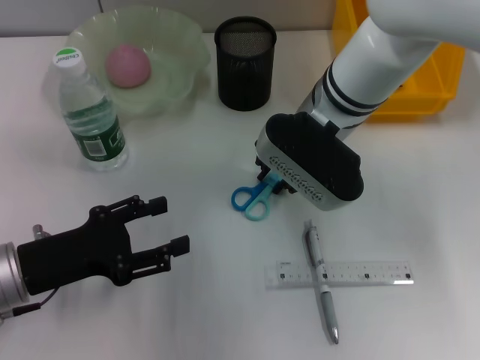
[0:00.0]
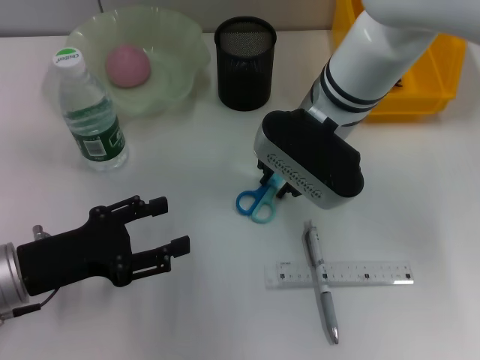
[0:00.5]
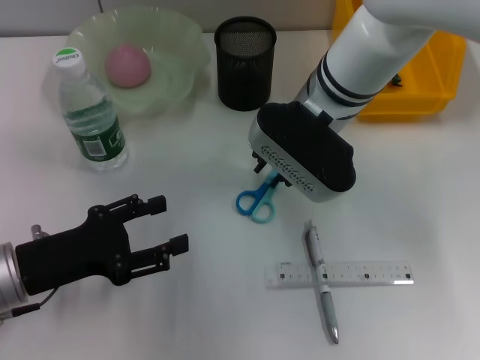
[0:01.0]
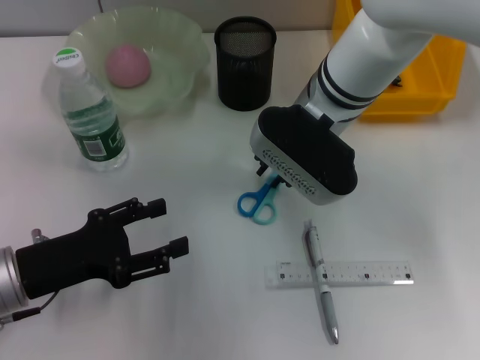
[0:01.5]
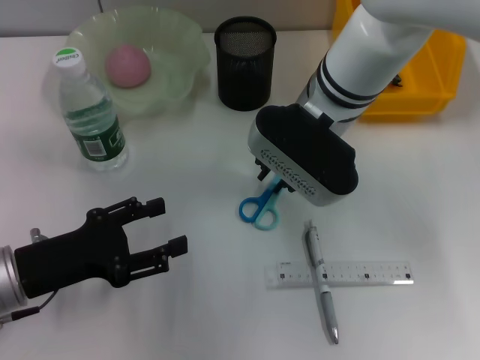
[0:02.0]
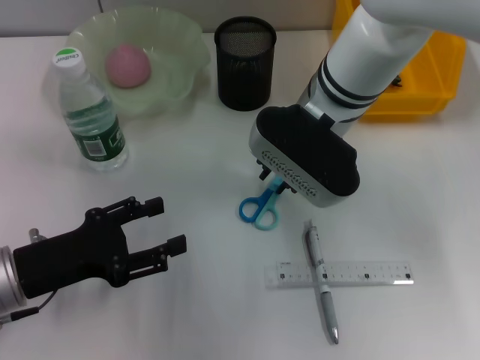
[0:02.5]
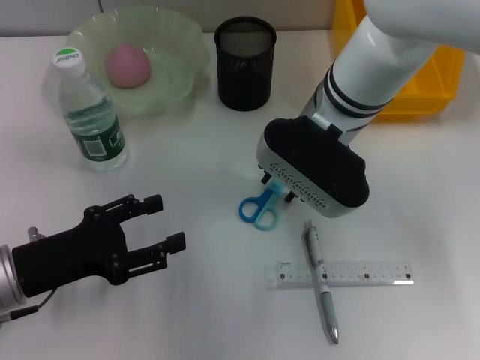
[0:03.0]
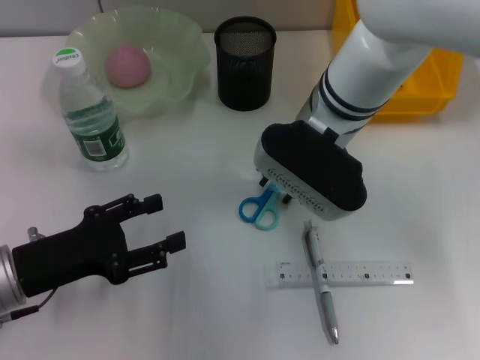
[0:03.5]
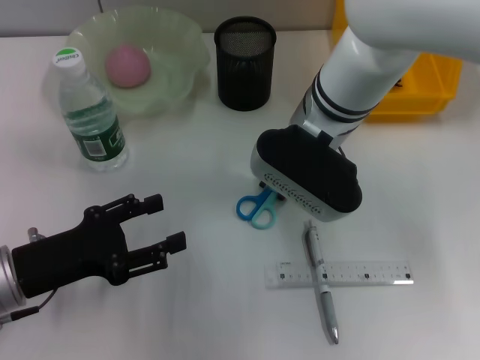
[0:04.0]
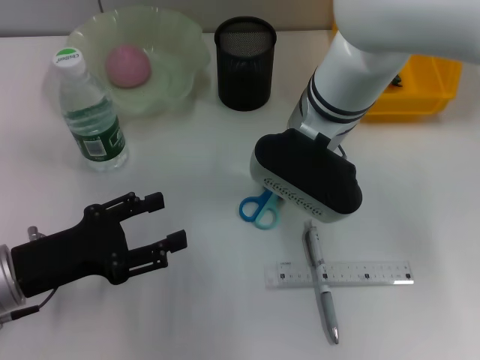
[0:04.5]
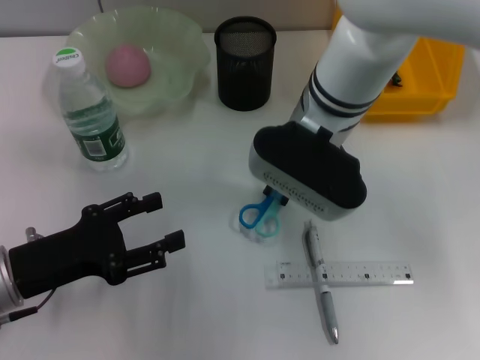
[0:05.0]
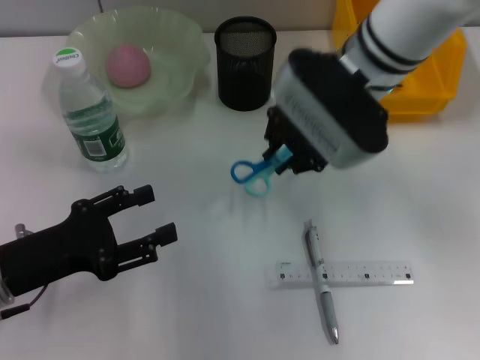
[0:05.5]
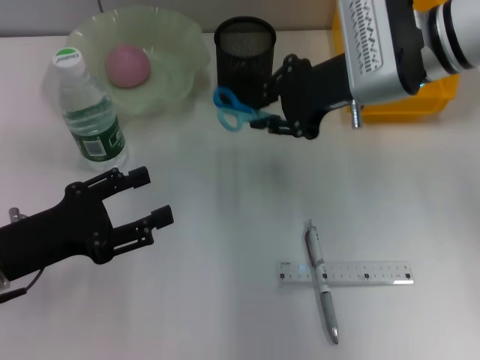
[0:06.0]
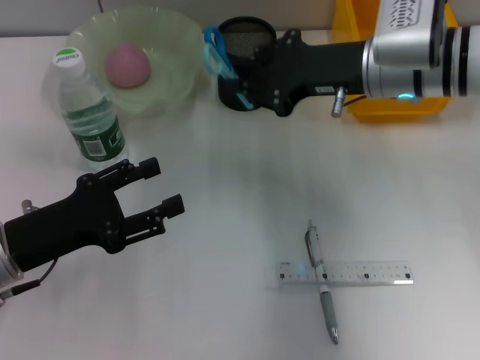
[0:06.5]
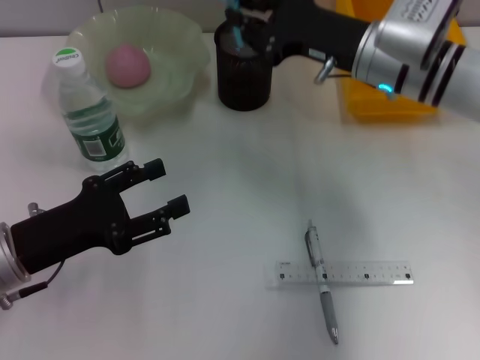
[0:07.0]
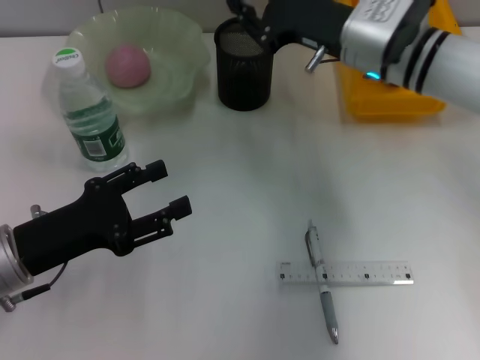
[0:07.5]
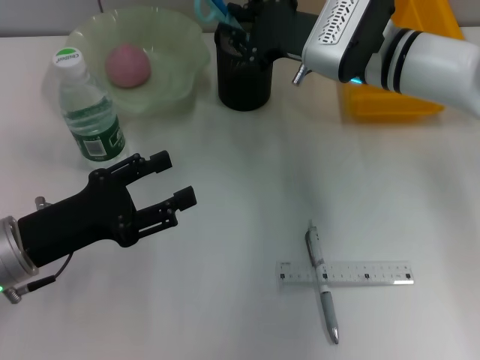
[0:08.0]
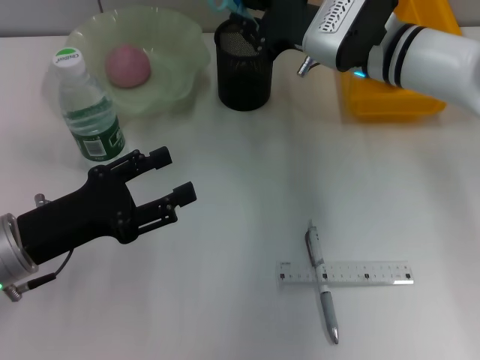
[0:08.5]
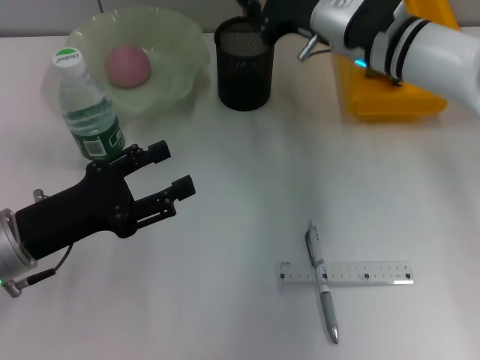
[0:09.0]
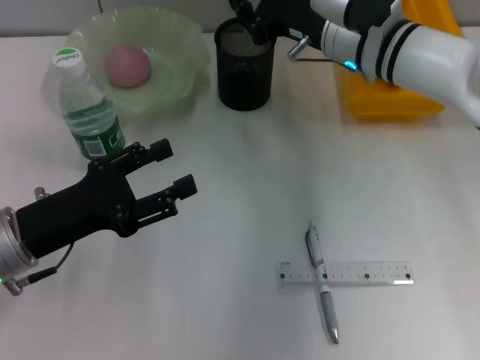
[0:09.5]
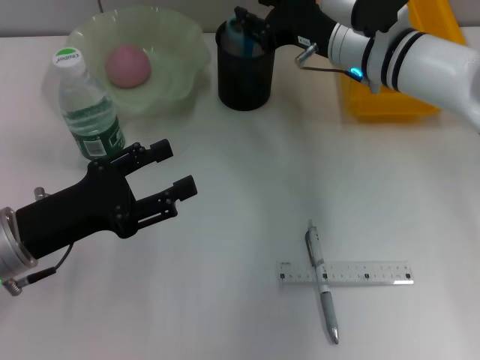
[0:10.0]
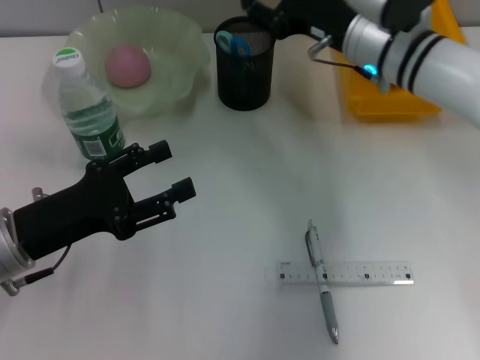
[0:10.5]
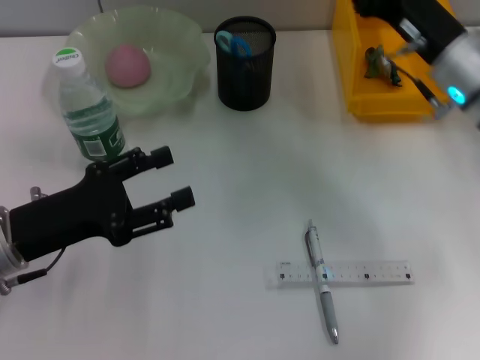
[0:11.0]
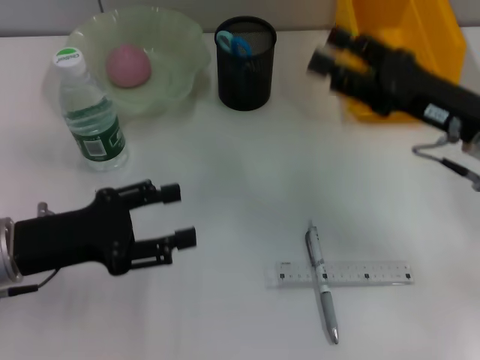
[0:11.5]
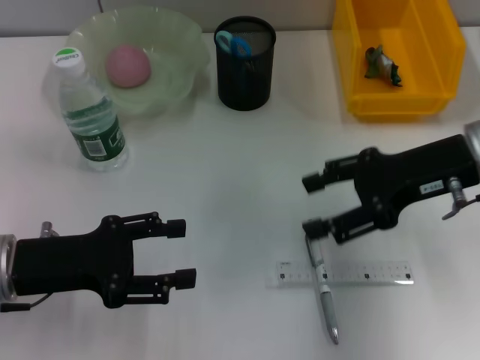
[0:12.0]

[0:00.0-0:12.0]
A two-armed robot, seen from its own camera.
Step, 0:00.0 to 0:04.5: Grab the blue utility knife with the right hand.
Step, 0:05.0 to 0:10.0: Place the blue utility knife into the pen holder with the right hand.
0:00.0 to 0:04.0: The grippers make only small movements.
0:04.0 to 0:06.0: The right gripper goes some 10 cm to the right.
0:06.0 to 0:08.0: The right gripper shifts by some 5 cm.
0:10.0 to 0:12.0: The right gripper travels backward and to the right by some 15 cm, and opens its fingers.

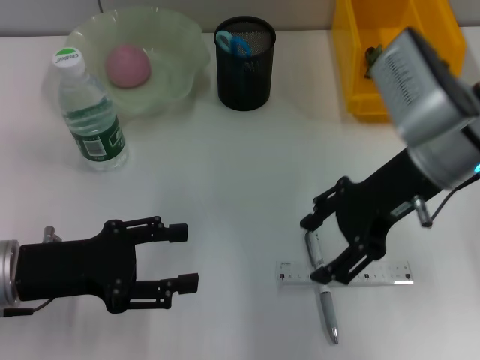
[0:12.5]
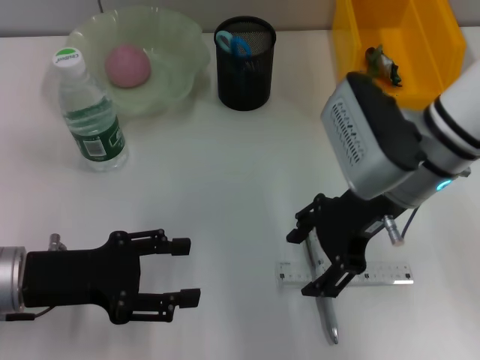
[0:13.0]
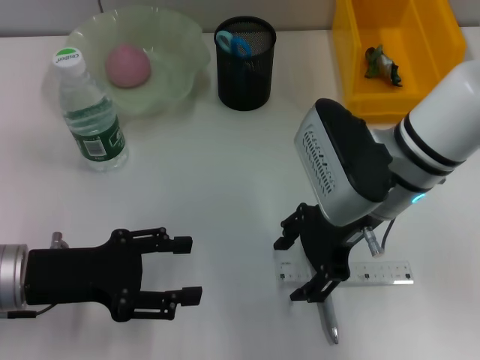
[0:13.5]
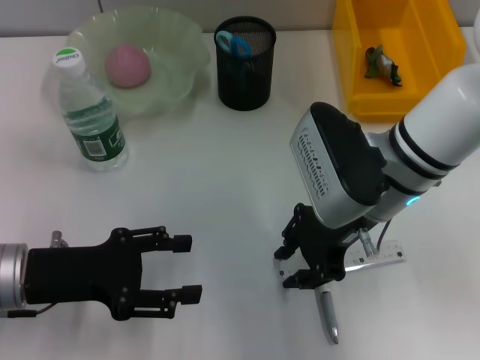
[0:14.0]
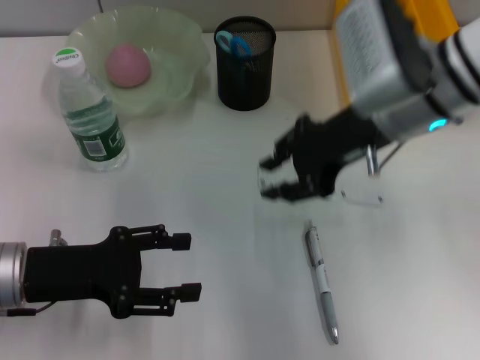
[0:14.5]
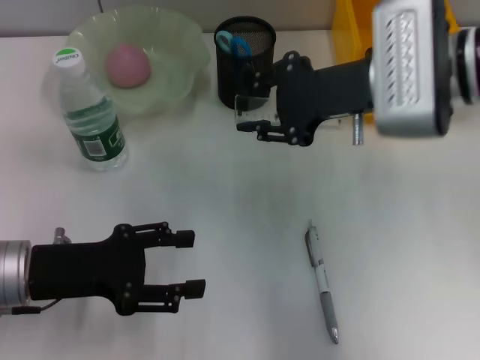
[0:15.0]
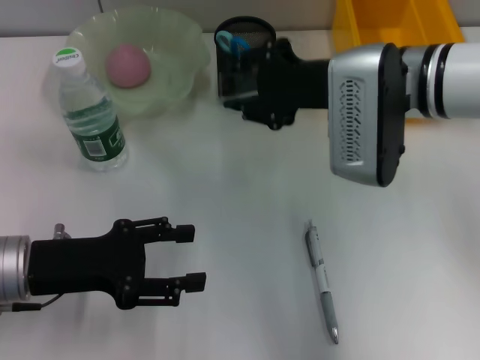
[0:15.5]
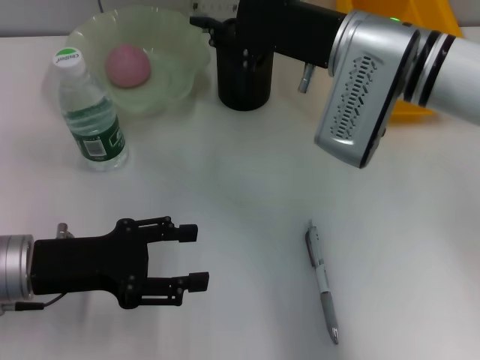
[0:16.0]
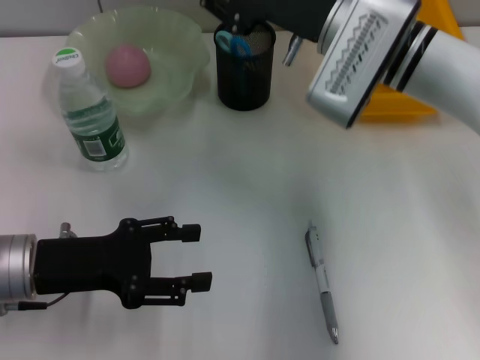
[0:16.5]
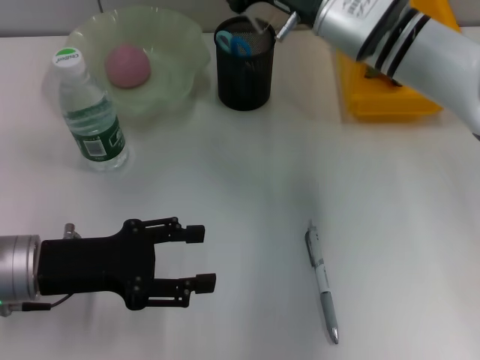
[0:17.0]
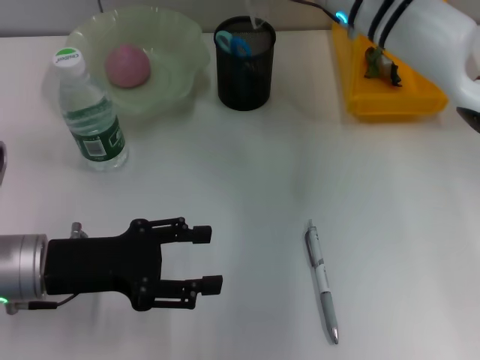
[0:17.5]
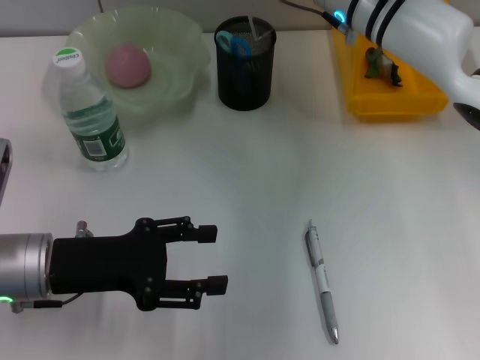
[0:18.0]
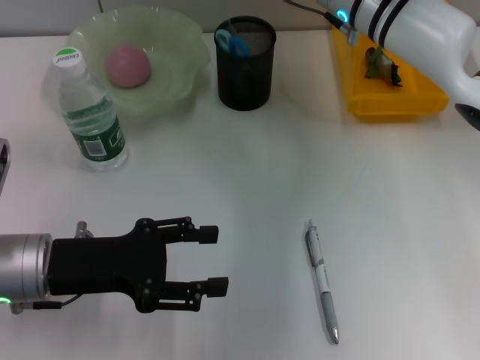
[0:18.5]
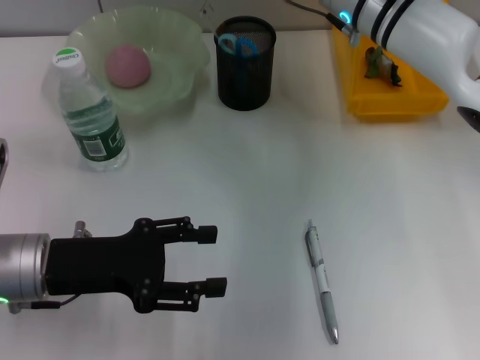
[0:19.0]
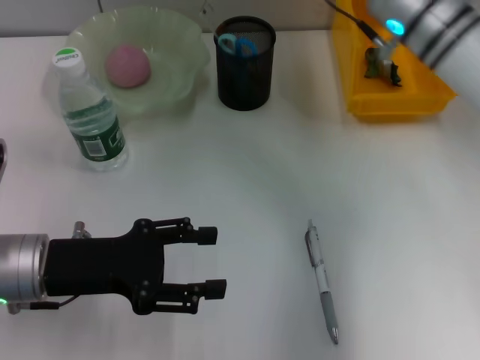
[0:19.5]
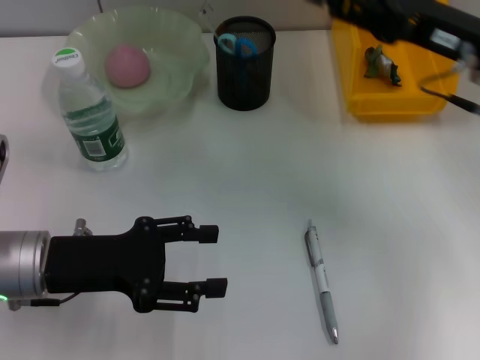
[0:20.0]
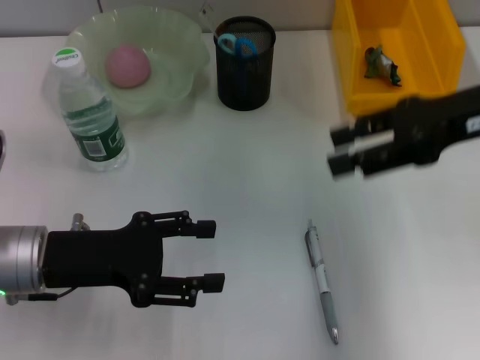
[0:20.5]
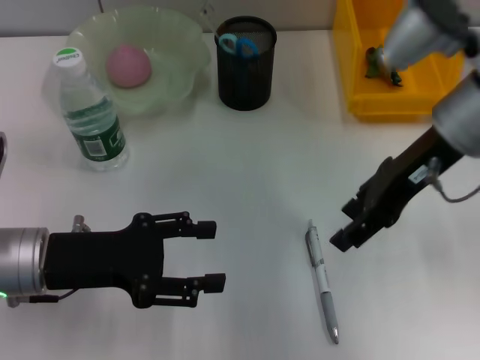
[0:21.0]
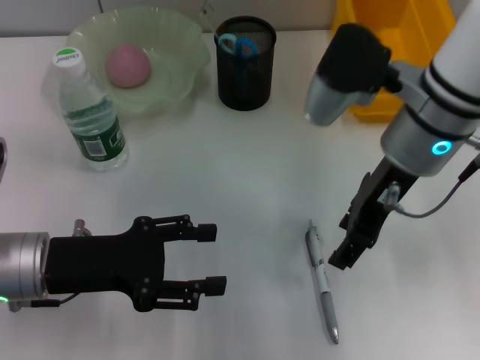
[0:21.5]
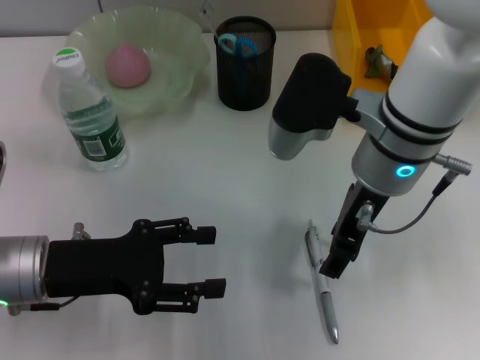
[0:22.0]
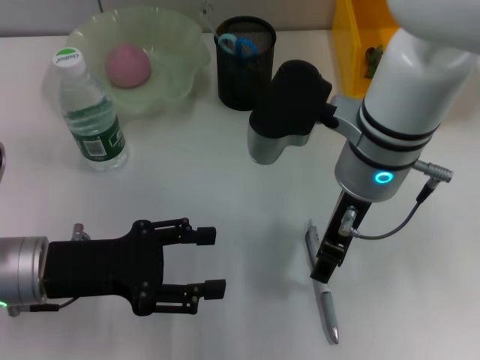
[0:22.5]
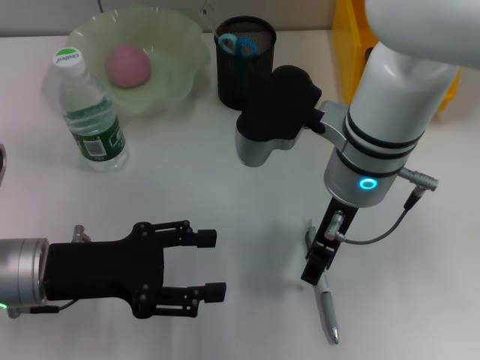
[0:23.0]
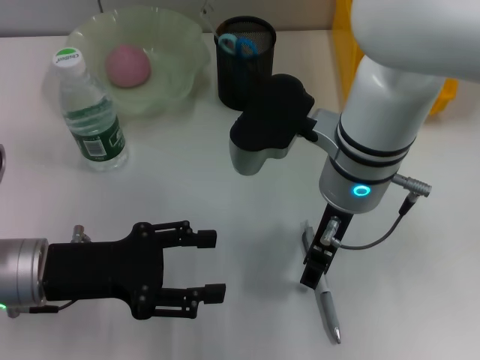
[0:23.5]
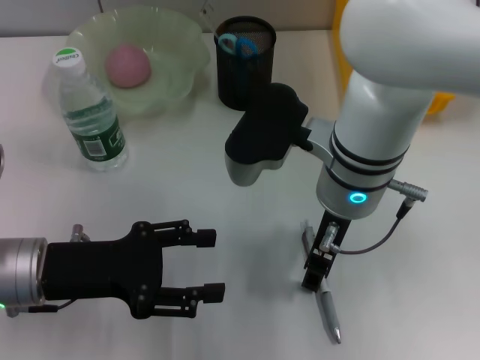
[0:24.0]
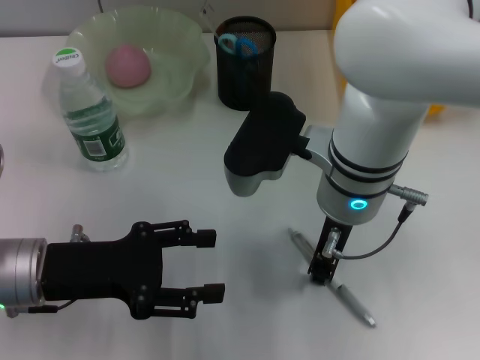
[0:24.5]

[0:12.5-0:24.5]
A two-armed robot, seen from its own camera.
Step, 0:14.0 to 0:18.5: Place the ruler into the pen holder with the right hand.
0:12.5 to 0:14.5: The right gripper closes.
0:14.5 to 0:16.5: The right gripper shifts by some 5 cm.
0:18.5 to 0:20.5: The right gripper is displaced to the right and backward by about 20 cm.
0:20.5 to 0:22.5: The right gripper is displaced to the left by approximately 15 cm.

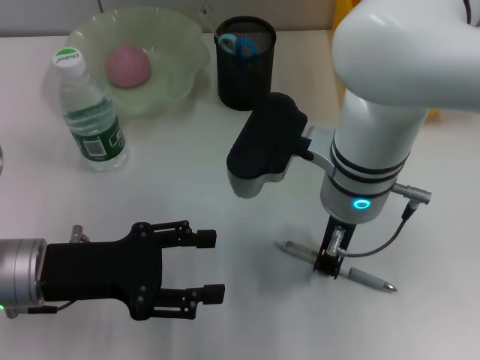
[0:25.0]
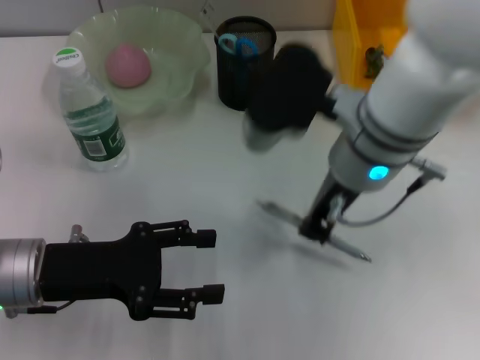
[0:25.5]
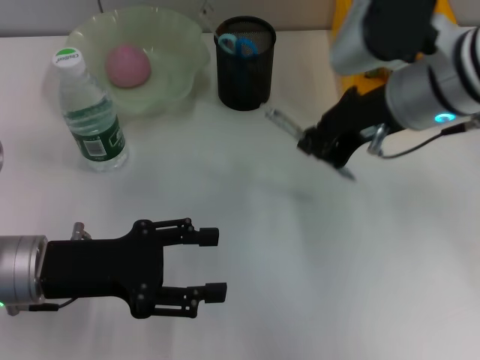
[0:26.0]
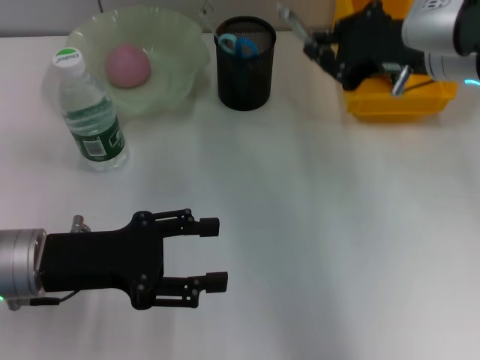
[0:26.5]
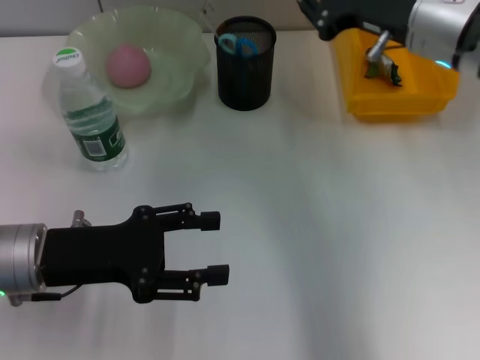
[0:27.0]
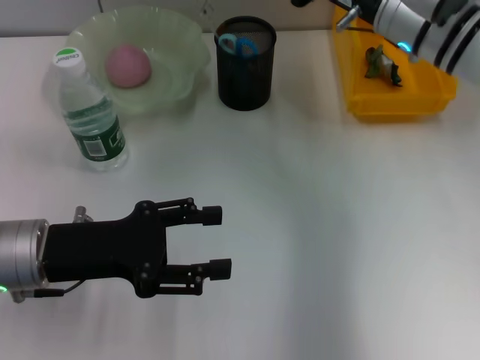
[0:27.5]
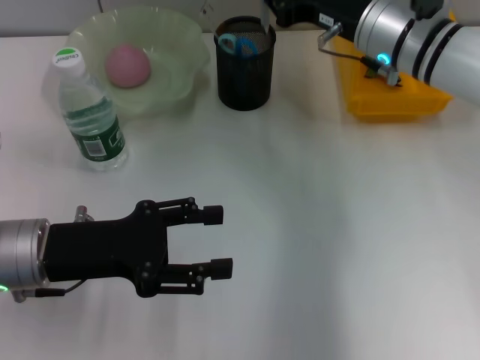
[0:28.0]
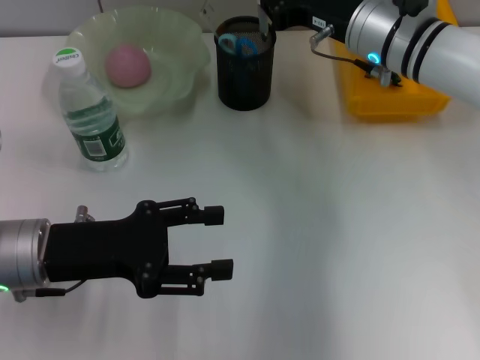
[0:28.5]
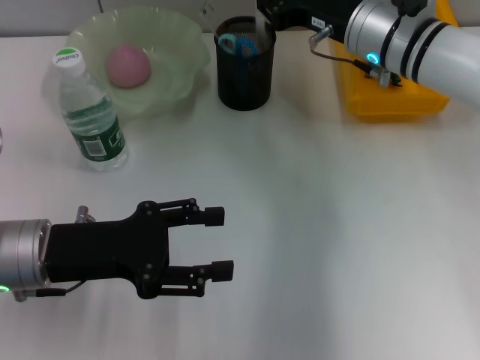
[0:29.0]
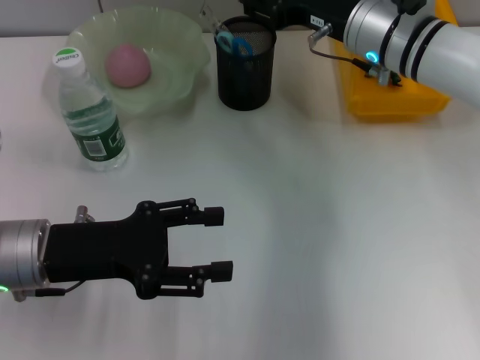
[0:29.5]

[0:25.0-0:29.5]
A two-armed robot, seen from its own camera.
Step, 0:25.0 to 0:29.0: Place the gray spring-action pen into the pen holder with the right hand.
0:25.0 to 0:27.0: The right gripper moves to the right and forward, roughly 15 cm.
0:27.0 to 0:29.5: The right gripper shifts by some 5 cm, and opens up.
